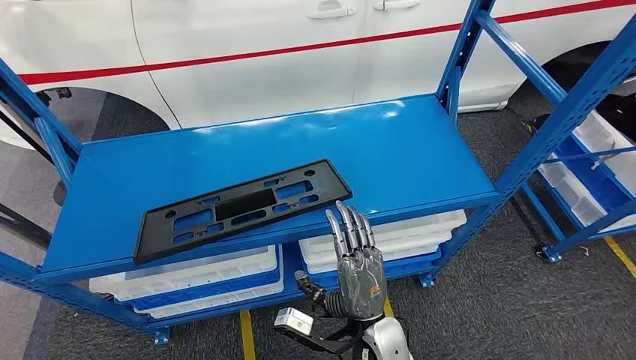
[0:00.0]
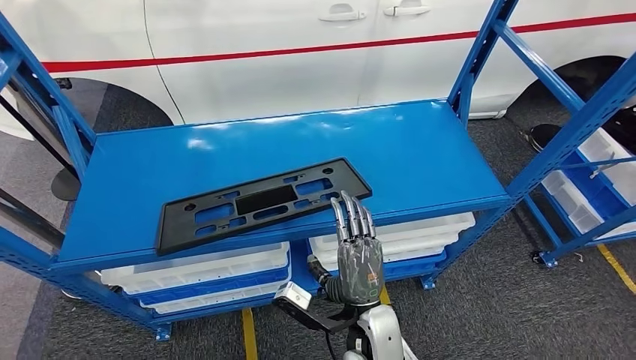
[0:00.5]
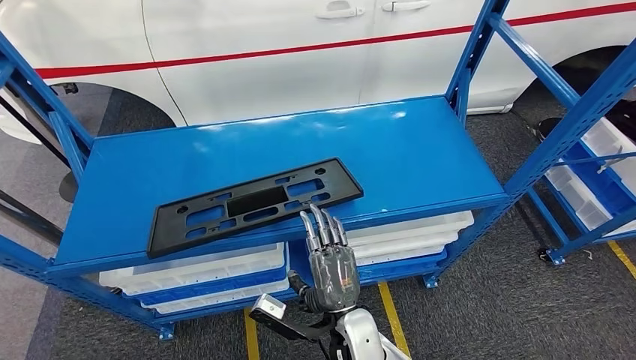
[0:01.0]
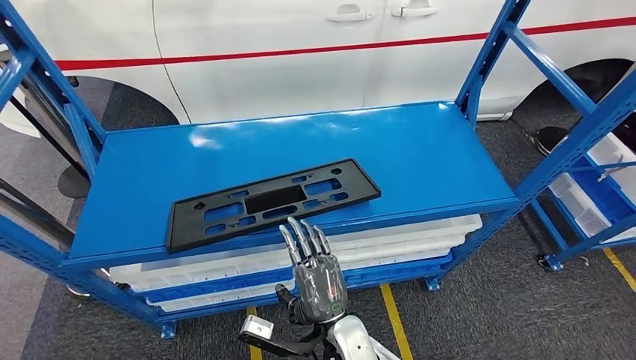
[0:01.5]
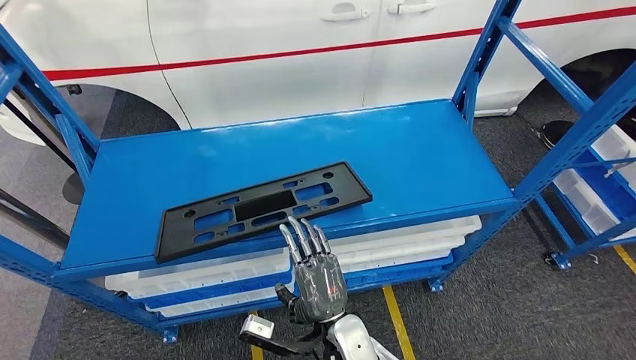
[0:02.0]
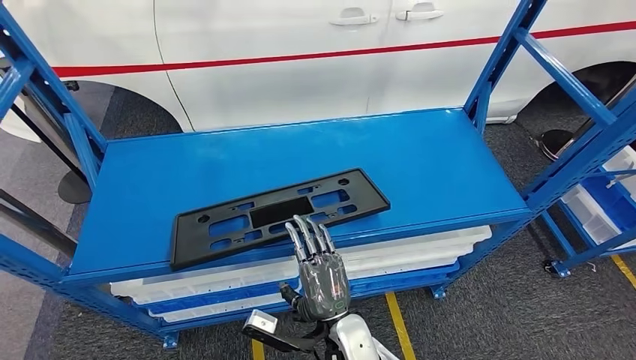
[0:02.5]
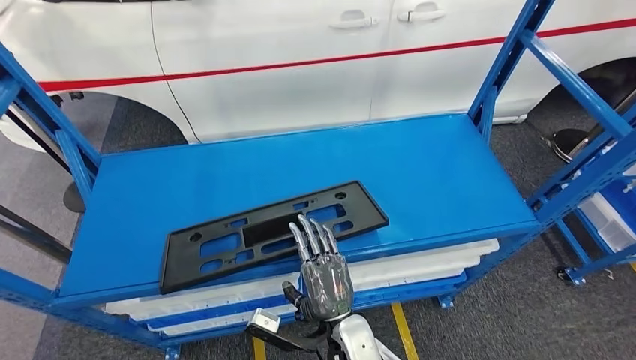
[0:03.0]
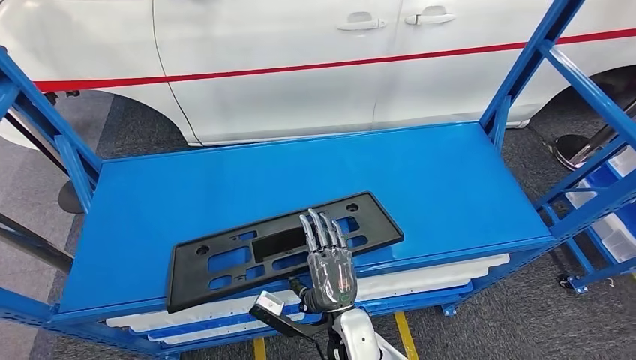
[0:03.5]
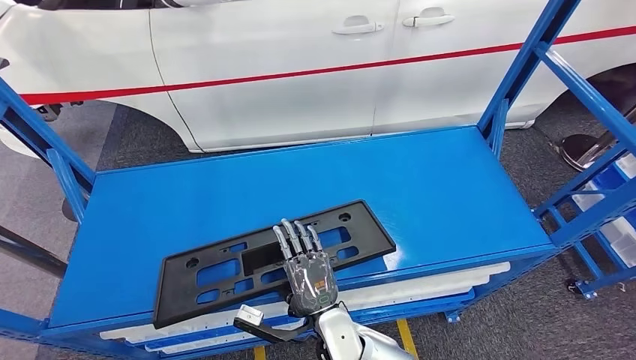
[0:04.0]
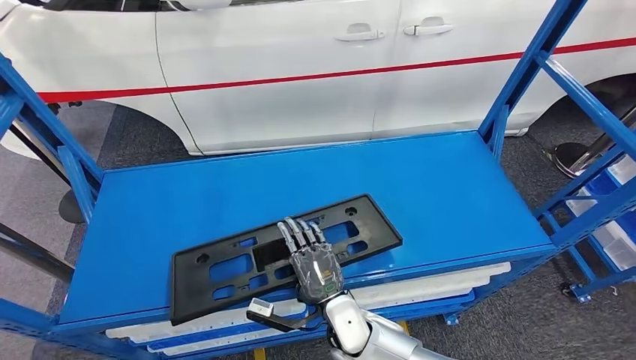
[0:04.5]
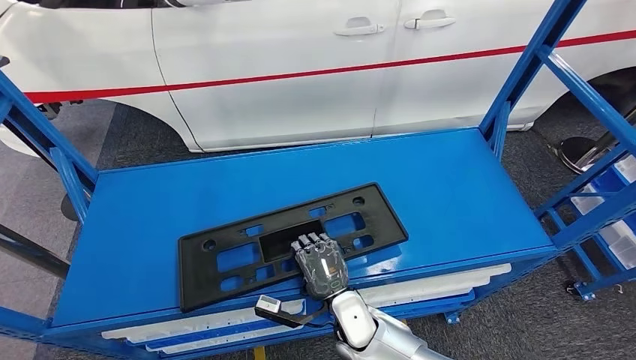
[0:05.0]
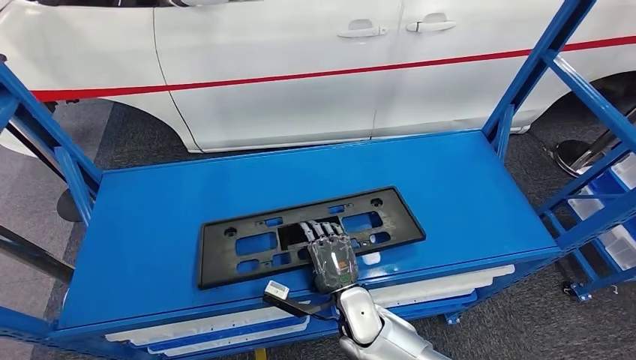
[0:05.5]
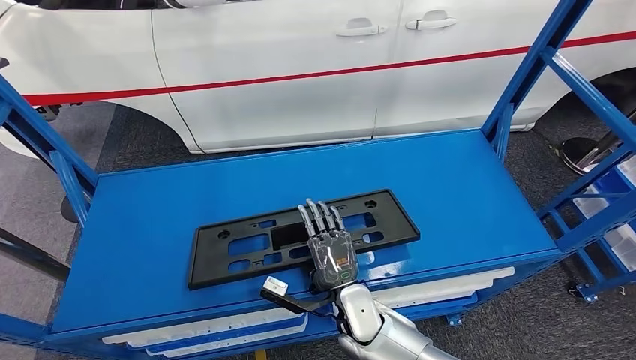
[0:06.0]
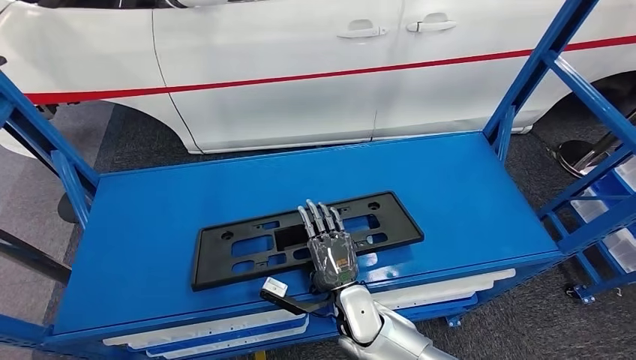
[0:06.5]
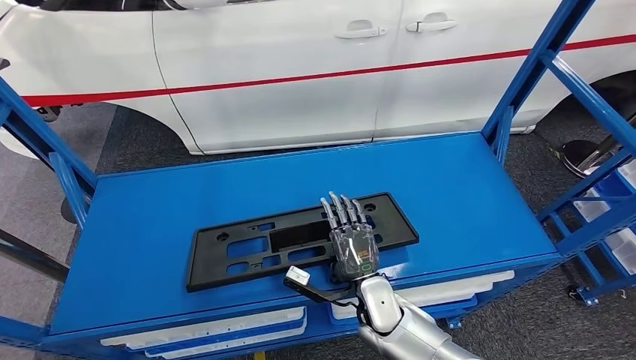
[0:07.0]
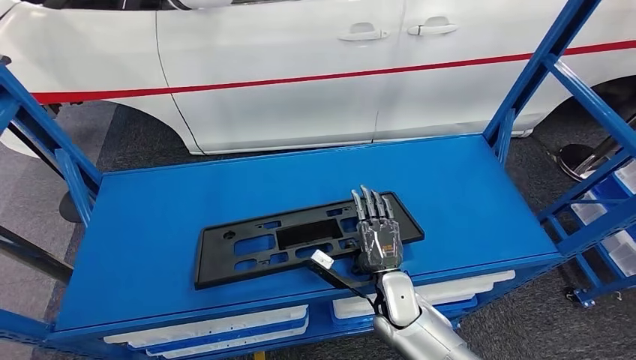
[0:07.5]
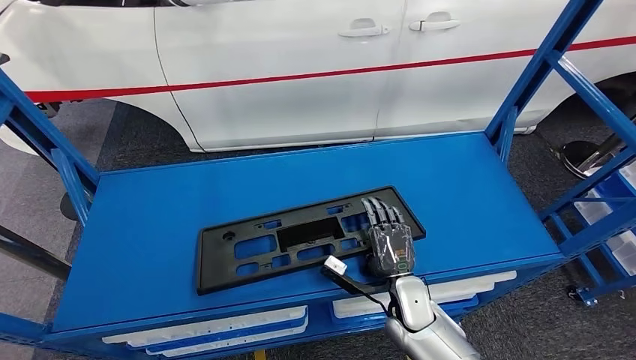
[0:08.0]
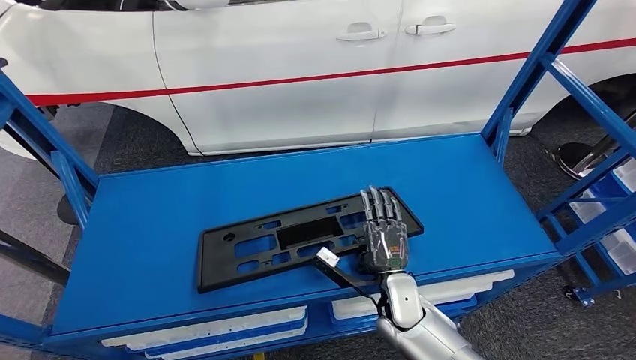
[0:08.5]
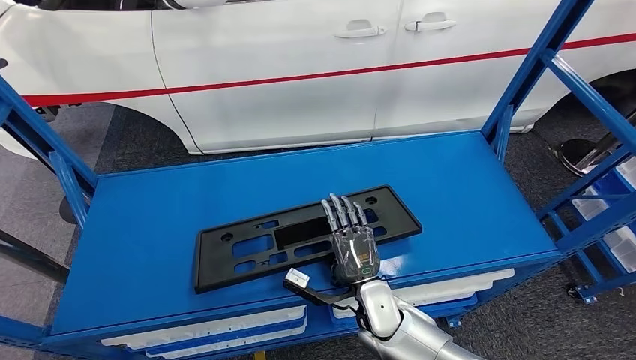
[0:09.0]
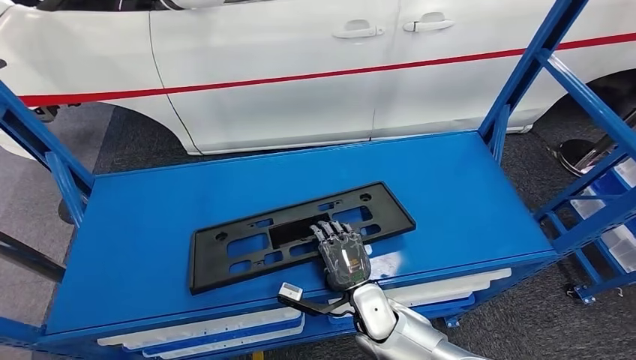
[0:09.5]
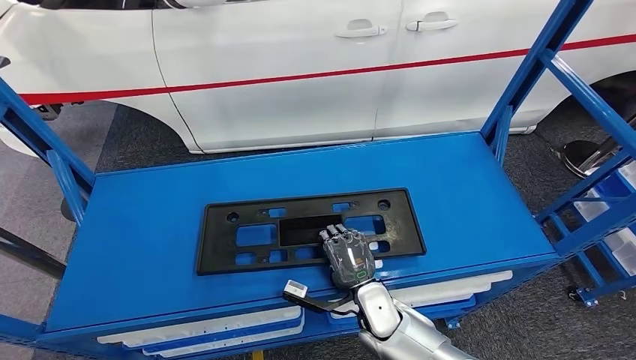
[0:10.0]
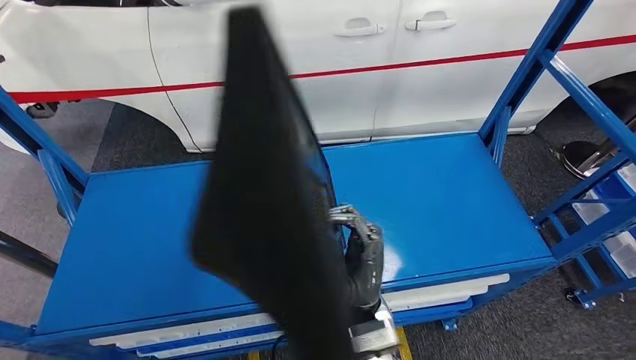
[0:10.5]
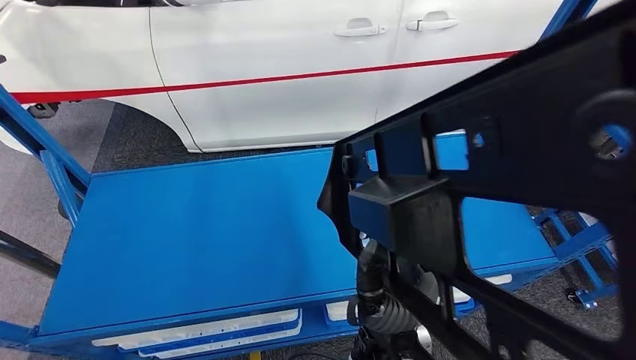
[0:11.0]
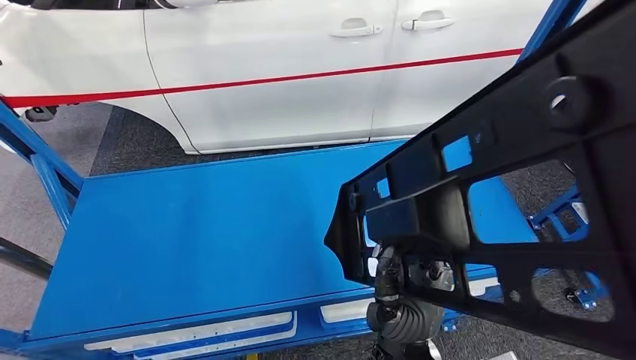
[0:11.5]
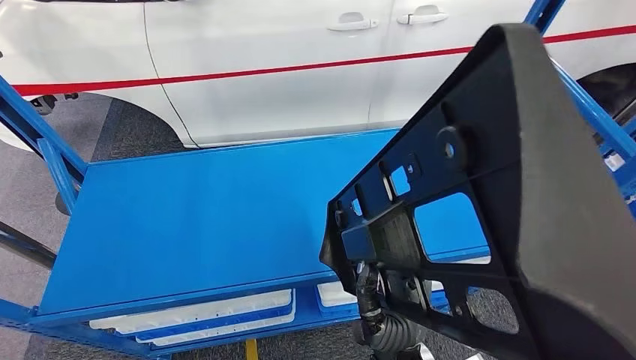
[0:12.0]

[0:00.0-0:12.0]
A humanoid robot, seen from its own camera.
0:06.0 to 0:08.0: The right hand shifts approximately 10 cm to the right.
0:08.0 to 0:10.0: The right hand shifts some 5 cm to the left.

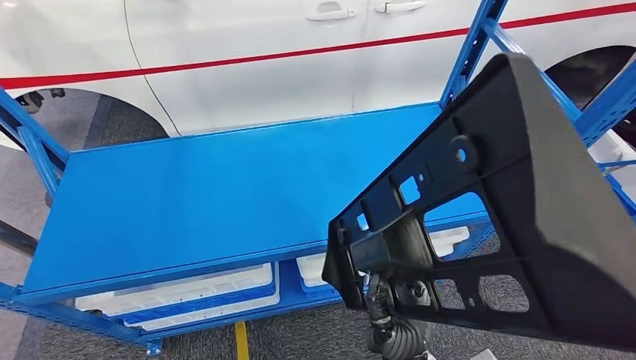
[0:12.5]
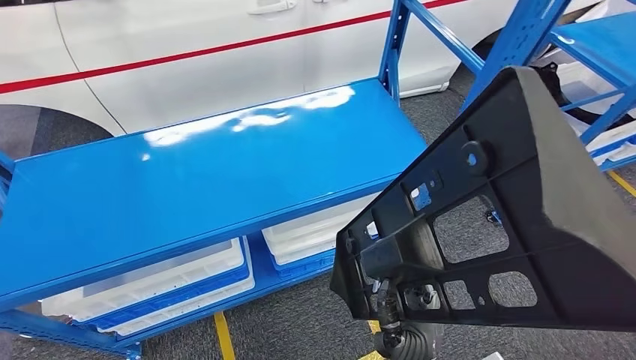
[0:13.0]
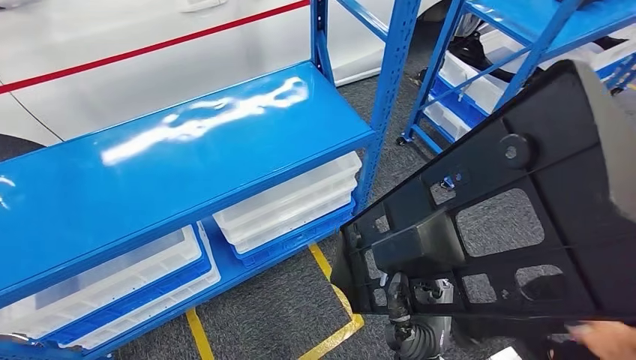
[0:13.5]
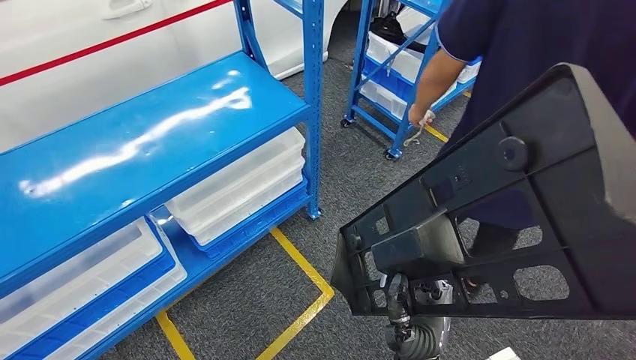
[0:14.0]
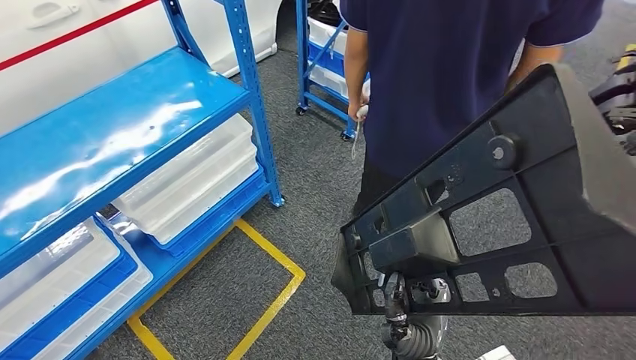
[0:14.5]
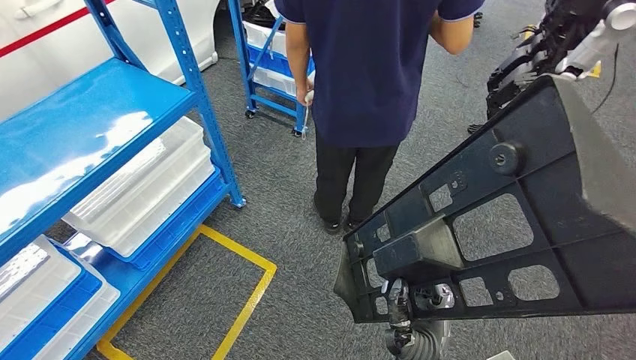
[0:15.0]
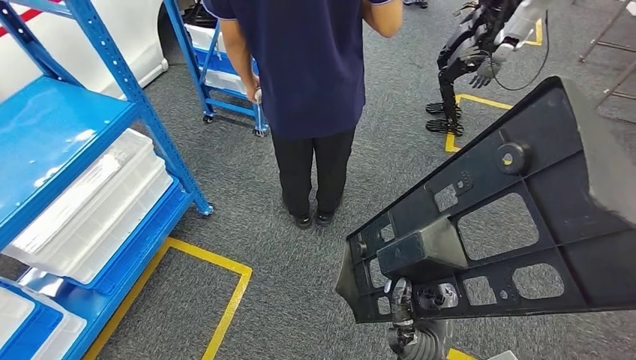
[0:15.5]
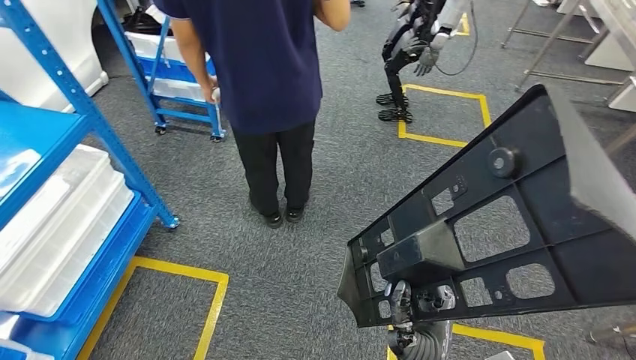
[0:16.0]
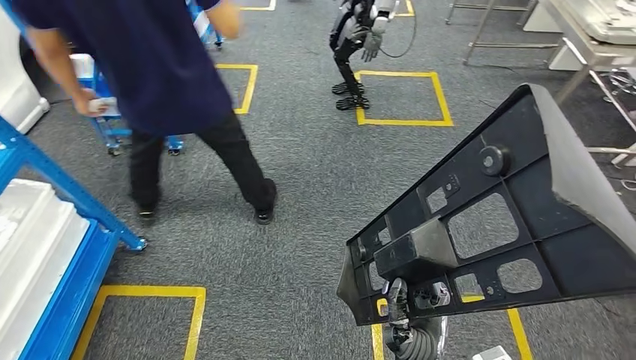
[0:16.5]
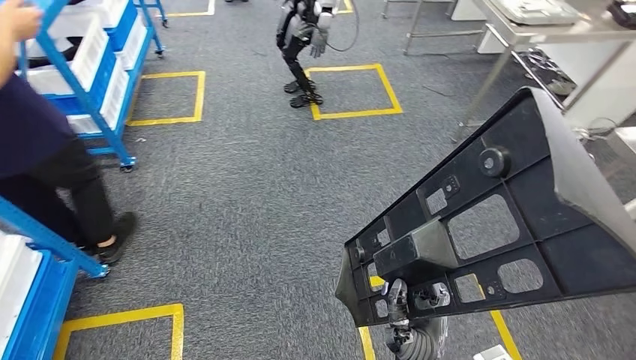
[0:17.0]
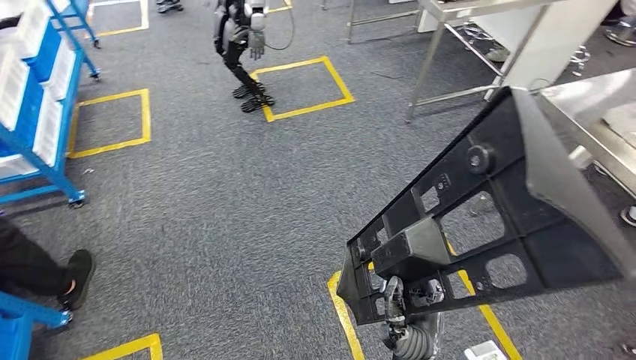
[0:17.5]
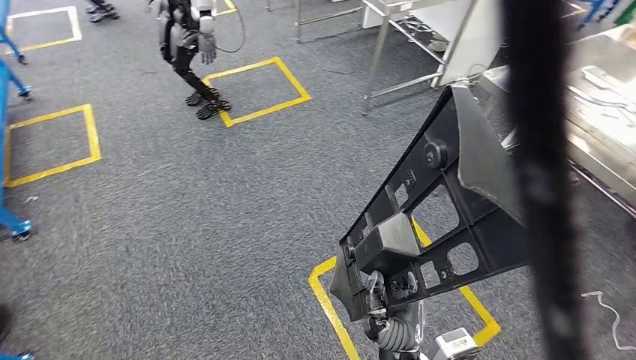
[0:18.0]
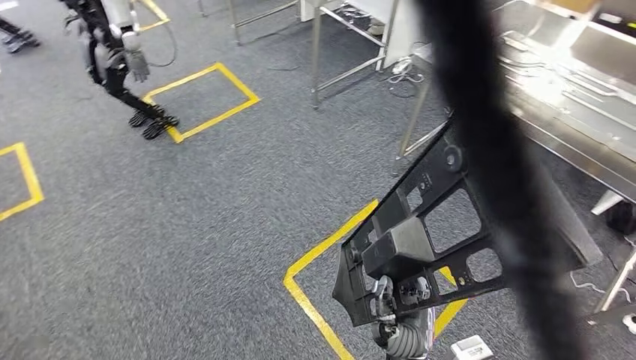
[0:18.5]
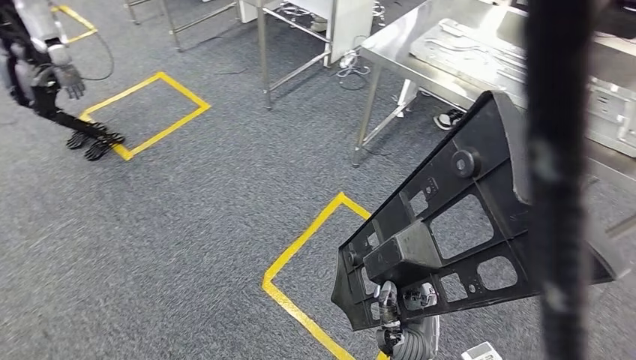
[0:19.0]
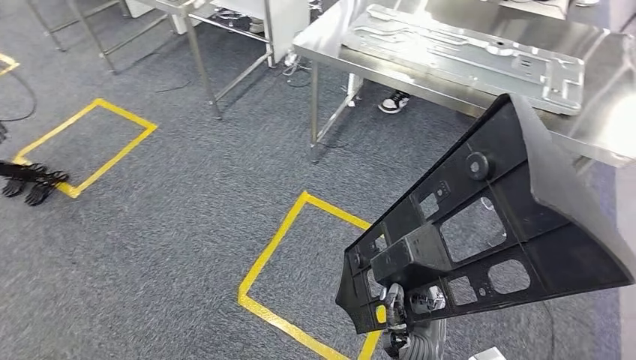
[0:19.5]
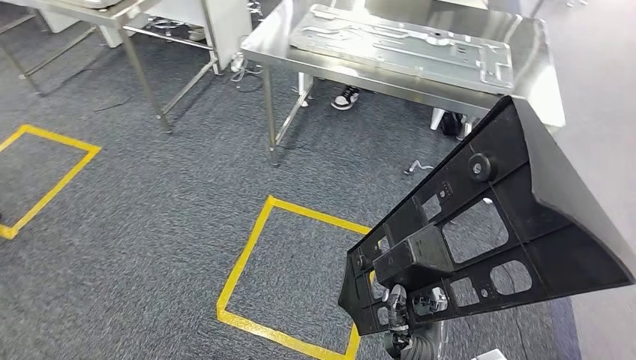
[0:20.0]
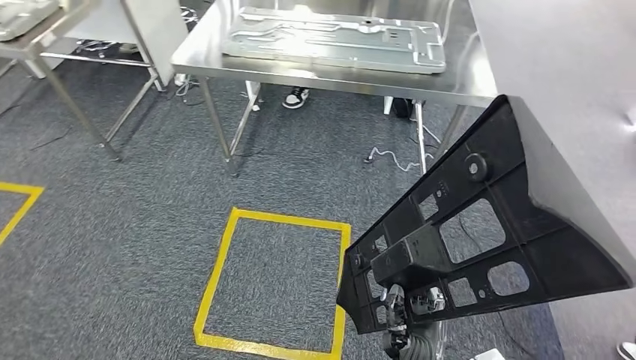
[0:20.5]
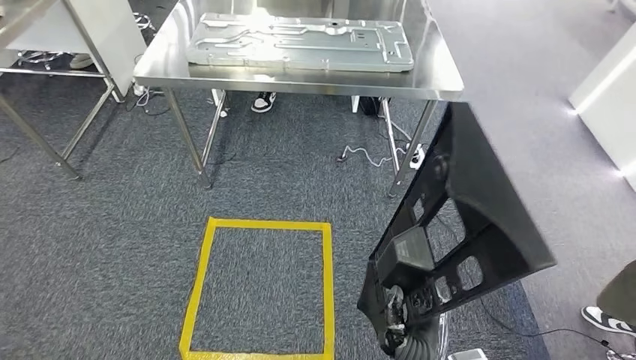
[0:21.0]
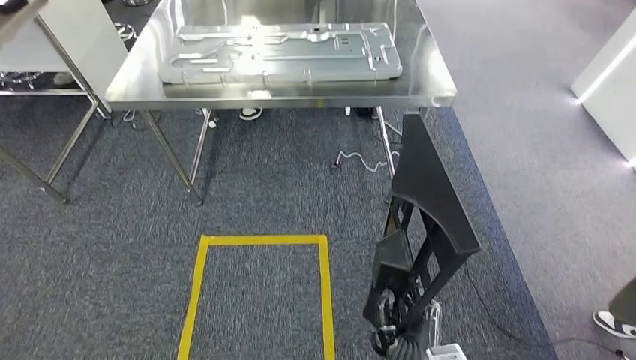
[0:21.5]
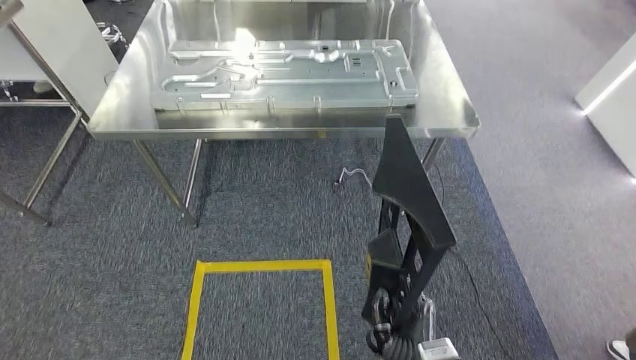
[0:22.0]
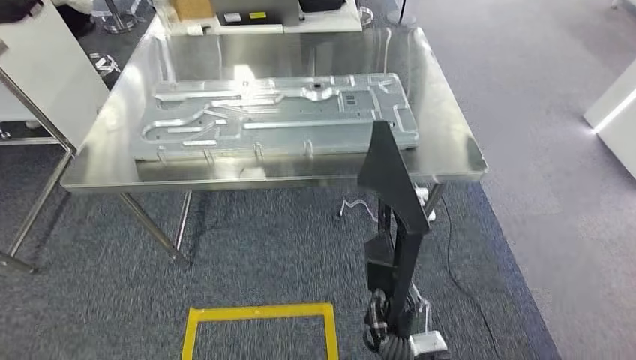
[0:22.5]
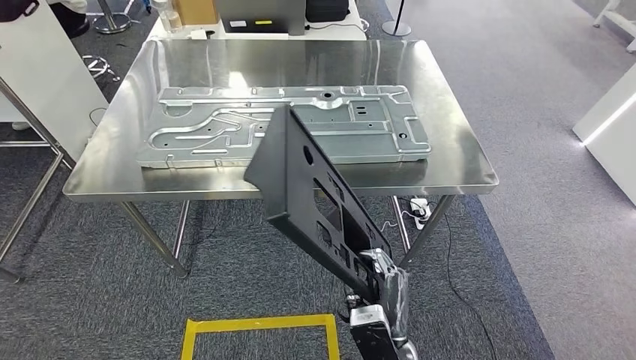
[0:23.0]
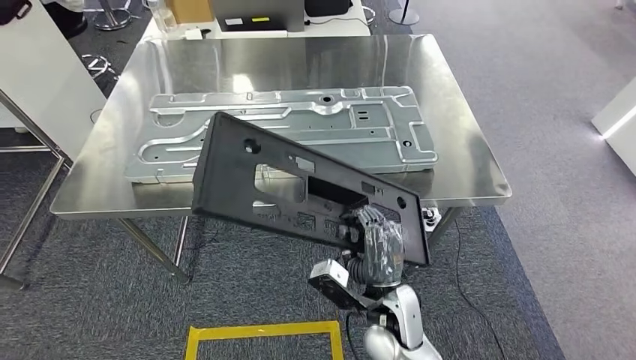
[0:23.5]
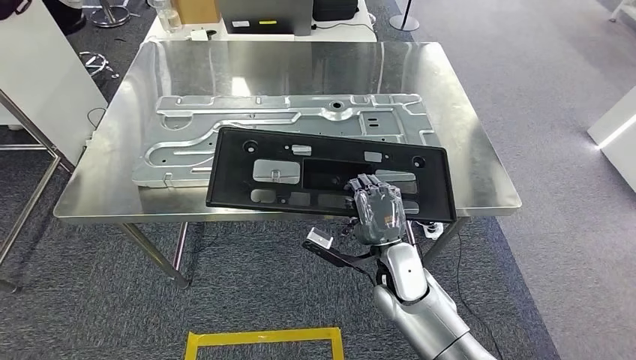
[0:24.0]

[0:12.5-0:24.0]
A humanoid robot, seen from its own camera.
Step, 0:12.5 to 0:23.0: Move the large material to the workbench.
